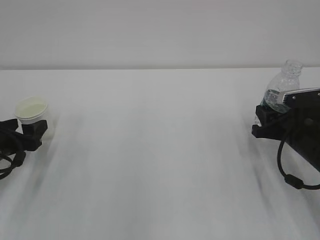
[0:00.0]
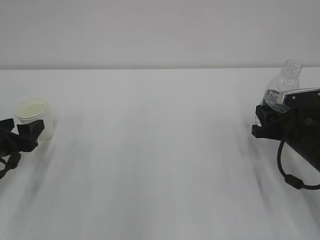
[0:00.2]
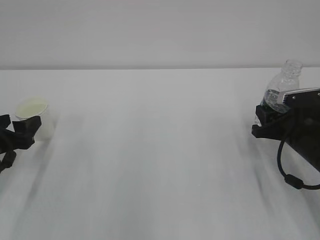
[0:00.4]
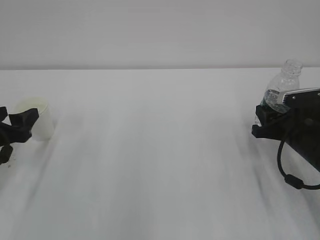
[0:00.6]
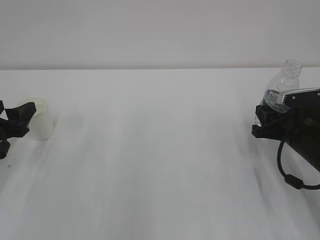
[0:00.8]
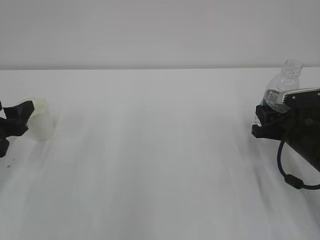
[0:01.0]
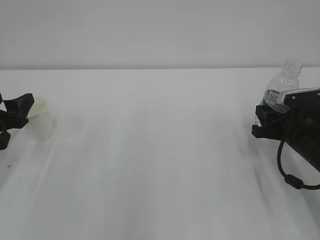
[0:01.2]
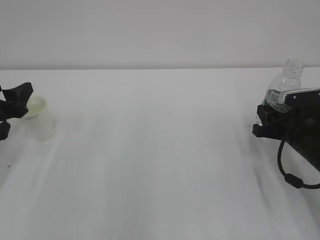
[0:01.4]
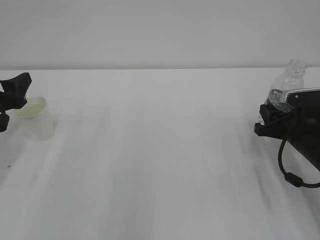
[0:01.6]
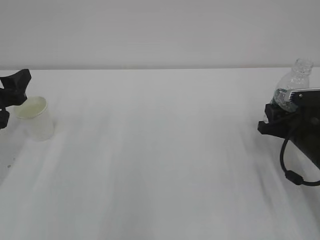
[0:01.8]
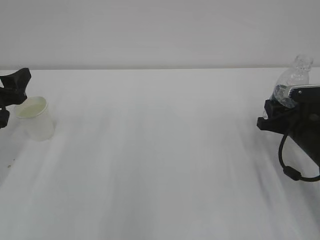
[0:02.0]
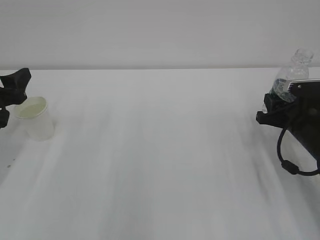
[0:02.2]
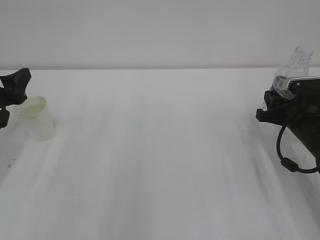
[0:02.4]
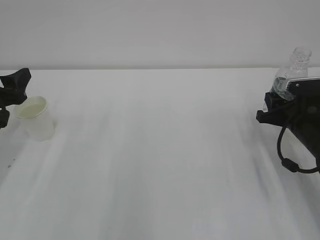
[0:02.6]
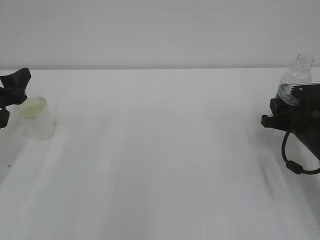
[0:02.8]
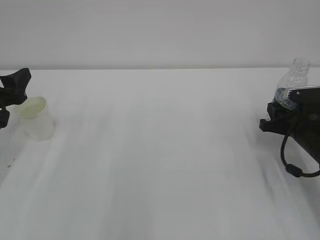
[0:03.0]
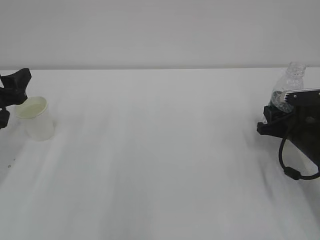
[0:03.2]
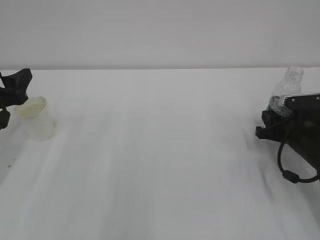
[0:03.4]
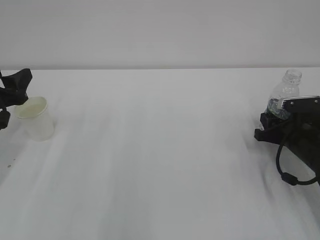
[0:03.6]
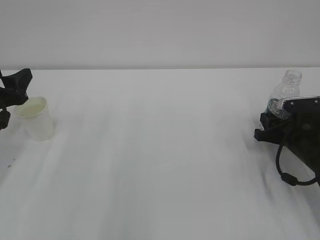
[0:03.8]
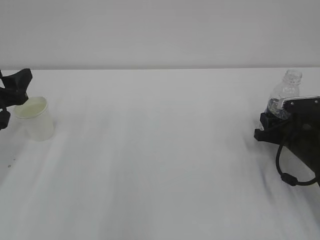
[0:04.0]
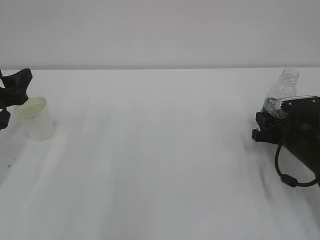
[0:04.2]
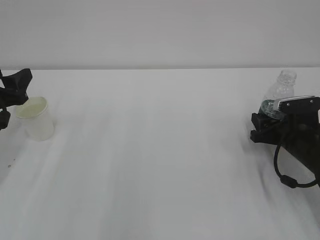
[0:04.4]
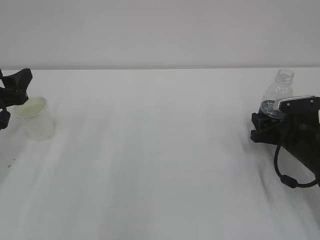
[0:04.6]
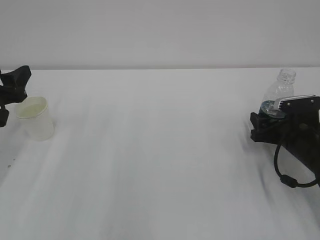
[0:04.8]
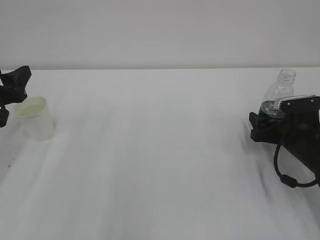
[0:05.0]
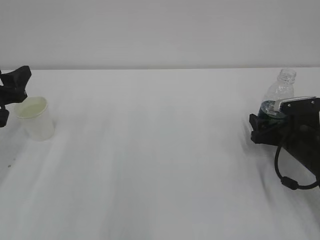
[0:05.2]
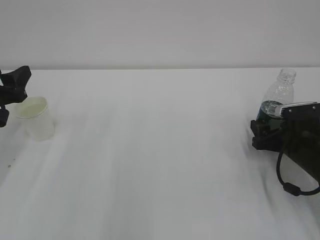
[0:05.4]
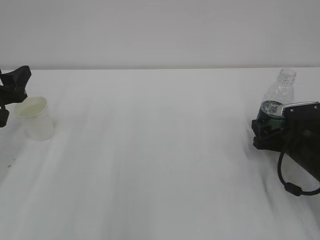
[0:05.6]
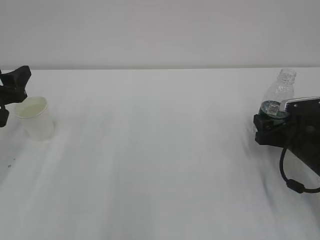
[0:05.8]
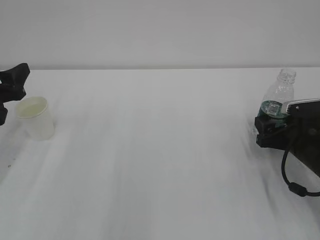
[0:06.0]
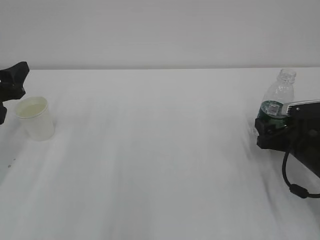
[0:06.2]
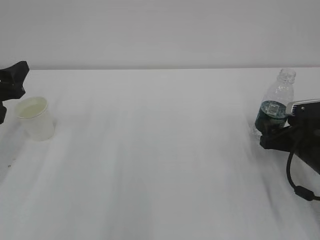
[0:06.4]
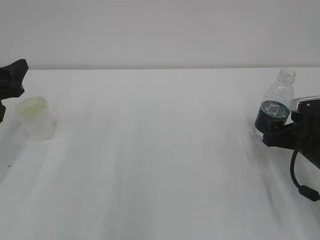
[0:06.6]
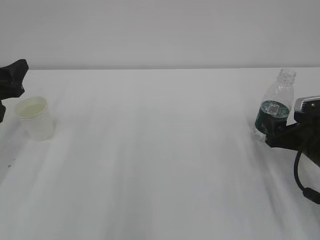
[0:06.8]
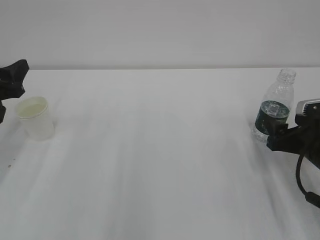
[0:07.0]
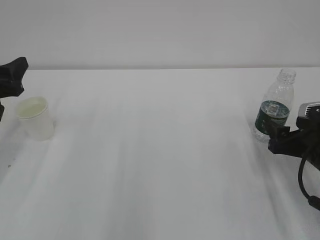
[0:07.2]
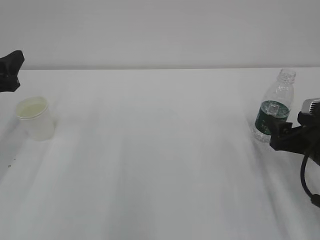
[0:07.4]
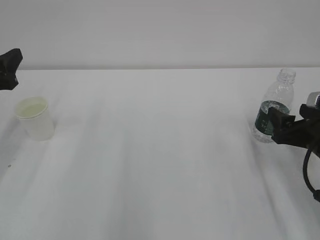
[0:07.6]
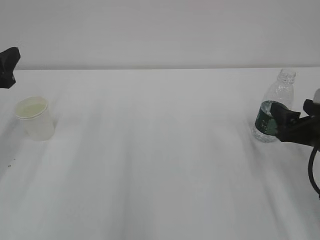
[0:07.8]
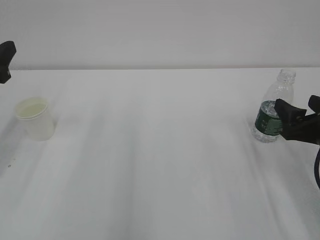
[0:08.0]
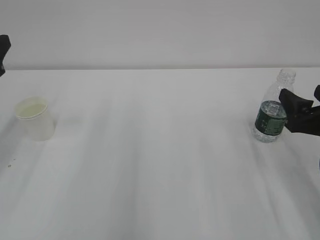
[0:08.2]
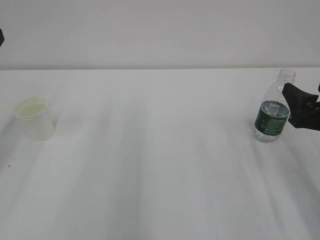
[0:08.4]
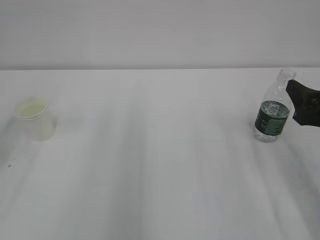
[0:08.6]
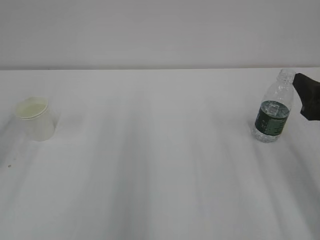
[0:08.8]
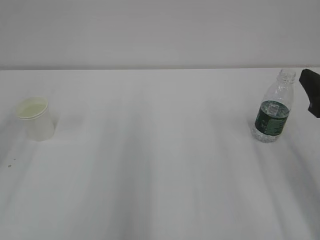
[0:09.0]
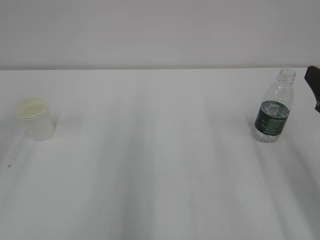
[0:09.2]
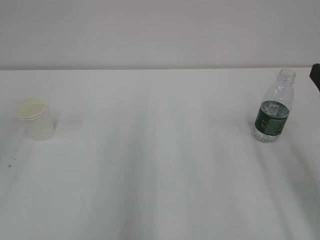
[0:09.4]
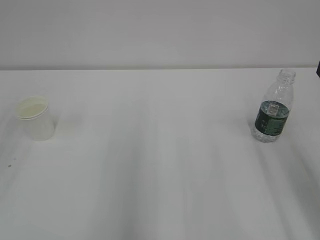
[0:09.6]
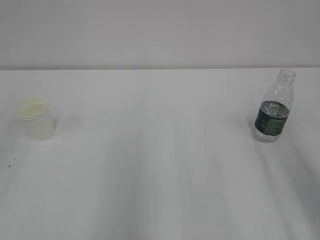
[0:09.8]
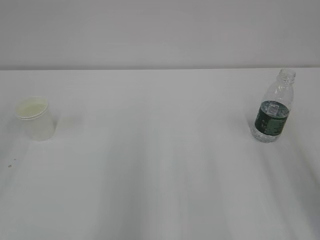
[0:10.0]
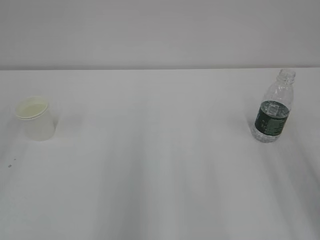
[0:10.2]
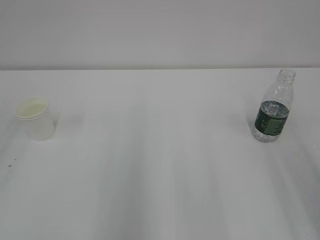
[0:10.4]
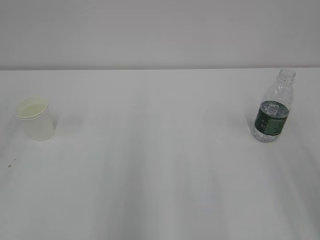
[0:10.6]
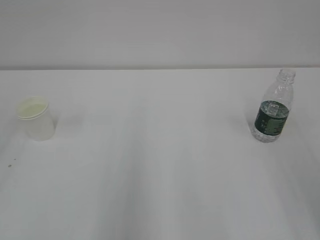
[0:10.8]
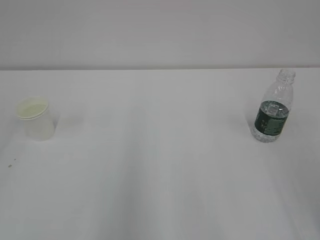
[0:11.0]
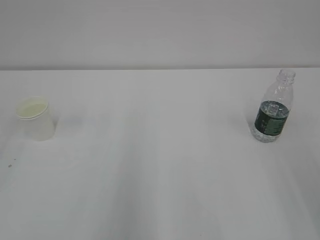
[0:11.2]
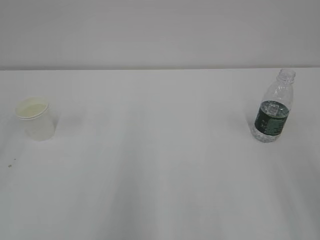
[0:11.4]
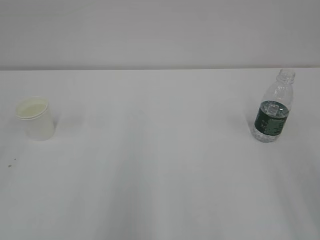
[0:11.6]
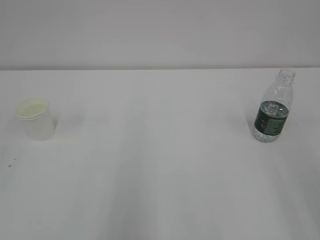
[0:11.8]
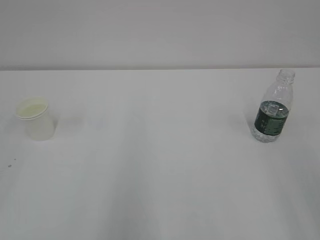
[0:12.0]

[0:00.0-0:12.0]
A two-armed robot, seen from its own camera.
0:00.0 to 0:01.6: The left gripper heads upward, covering some 10 cm.
0:01.6 to 0:03.0: There are only small adjustments of the grippers.
0:03.0 to 0:04.4: The right gripper opens its fingers.
0:04.4 to 0:06.0: The right gripper opens.
0:06.0 to 0:07.6: The right gripper changes place by about 5 cm.
0:07.6 to 0:09.0: The right gripper heads upward, covering about 10 cm. Meanwhile the left gripper moves upward and backward, approximately 10 cm.
0:09.0 to 0:10.4: The right gripper heads backward and upward, covering roughly 10 cm.
